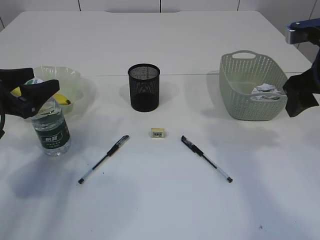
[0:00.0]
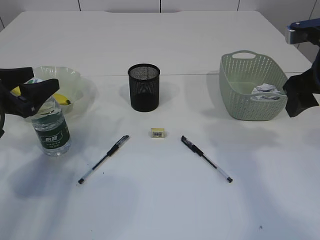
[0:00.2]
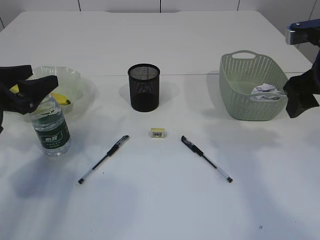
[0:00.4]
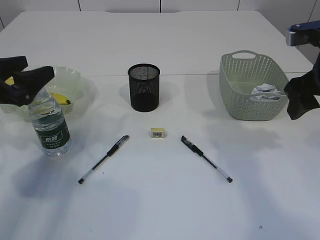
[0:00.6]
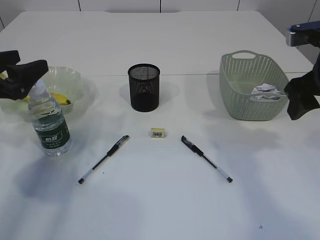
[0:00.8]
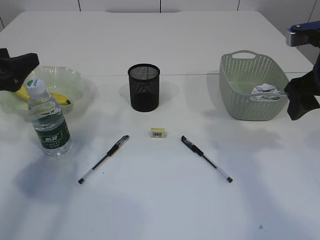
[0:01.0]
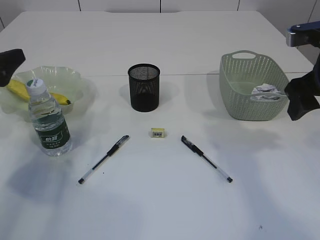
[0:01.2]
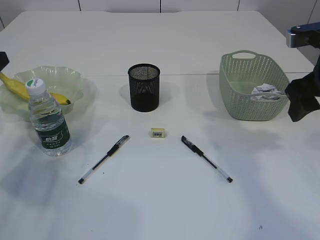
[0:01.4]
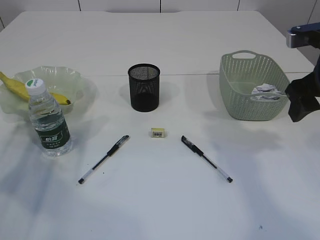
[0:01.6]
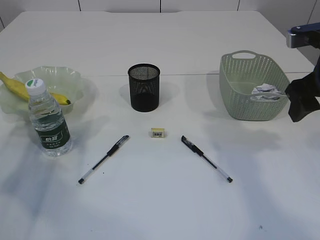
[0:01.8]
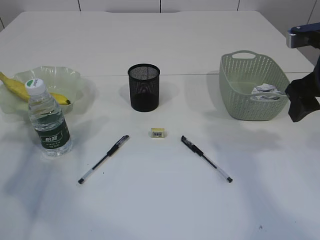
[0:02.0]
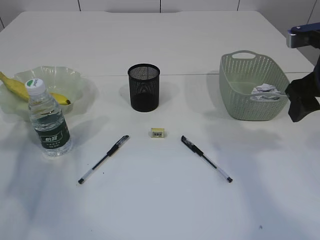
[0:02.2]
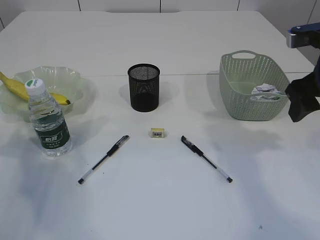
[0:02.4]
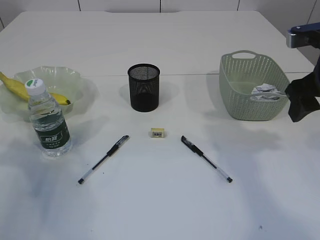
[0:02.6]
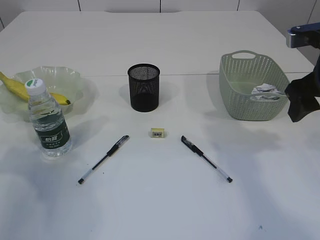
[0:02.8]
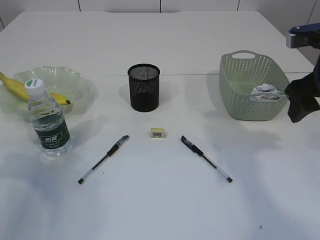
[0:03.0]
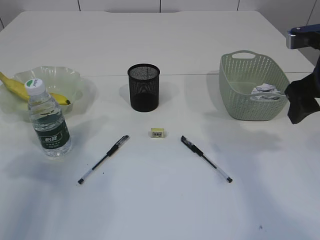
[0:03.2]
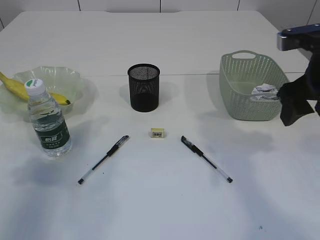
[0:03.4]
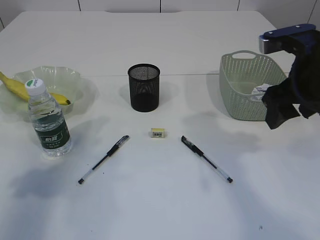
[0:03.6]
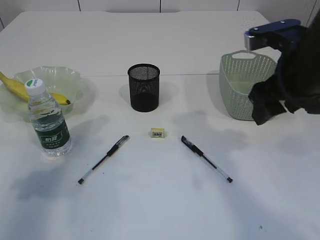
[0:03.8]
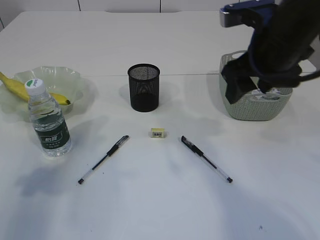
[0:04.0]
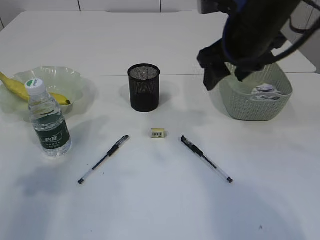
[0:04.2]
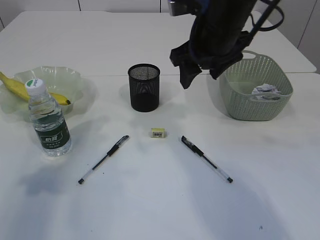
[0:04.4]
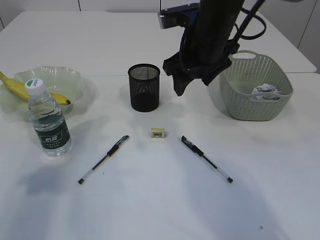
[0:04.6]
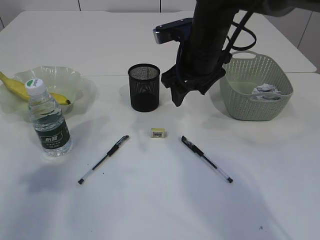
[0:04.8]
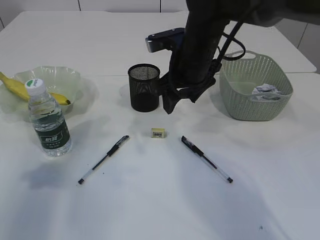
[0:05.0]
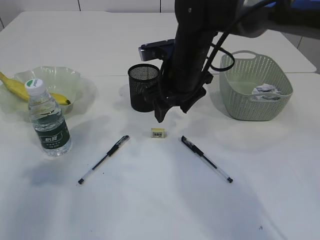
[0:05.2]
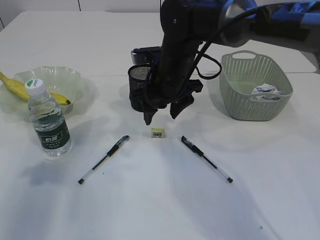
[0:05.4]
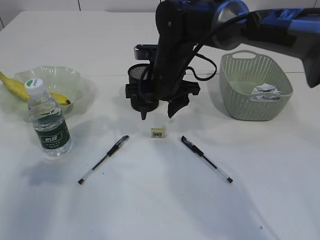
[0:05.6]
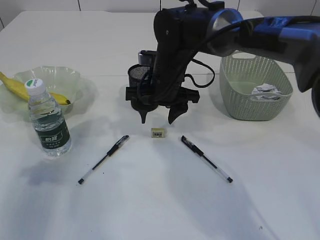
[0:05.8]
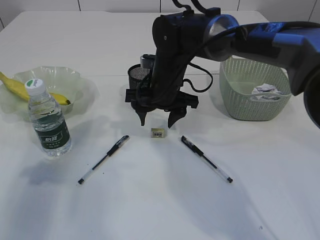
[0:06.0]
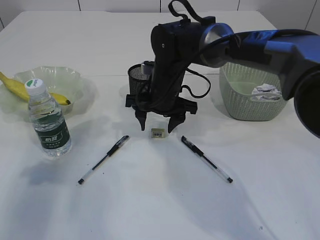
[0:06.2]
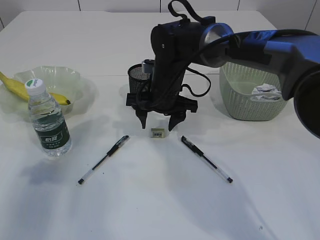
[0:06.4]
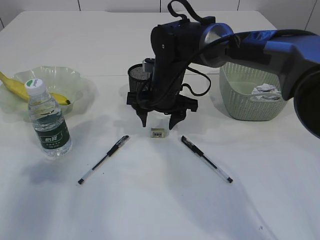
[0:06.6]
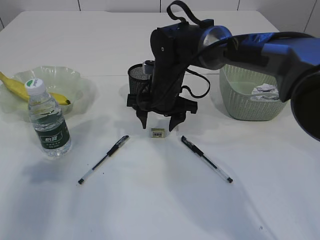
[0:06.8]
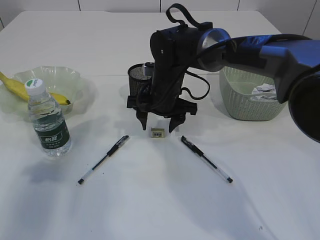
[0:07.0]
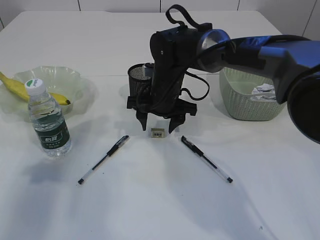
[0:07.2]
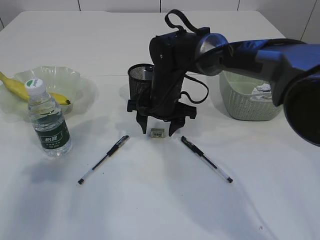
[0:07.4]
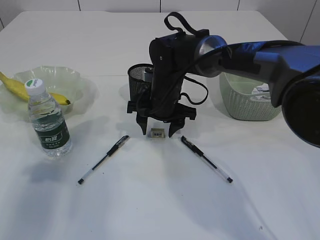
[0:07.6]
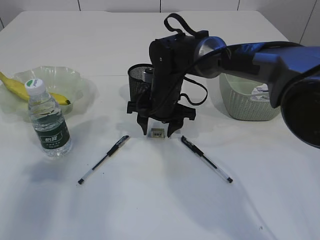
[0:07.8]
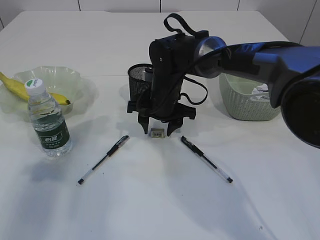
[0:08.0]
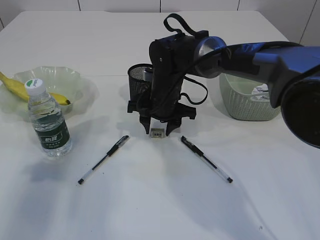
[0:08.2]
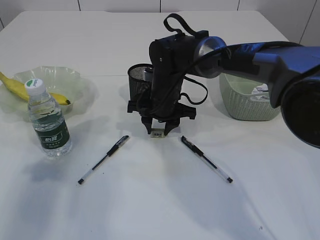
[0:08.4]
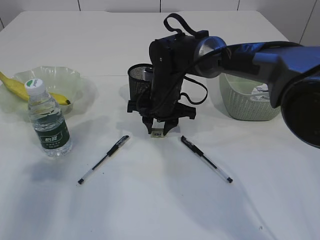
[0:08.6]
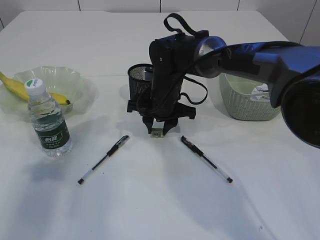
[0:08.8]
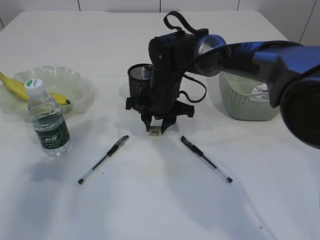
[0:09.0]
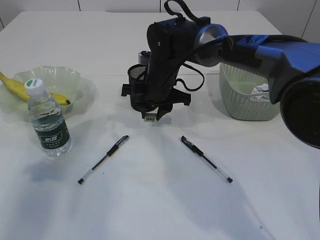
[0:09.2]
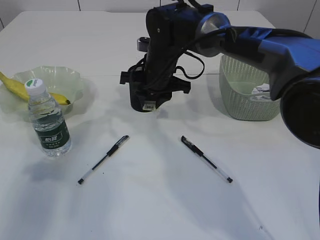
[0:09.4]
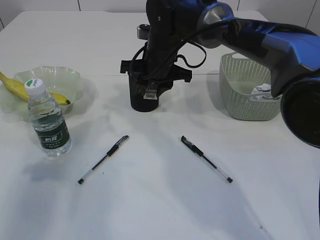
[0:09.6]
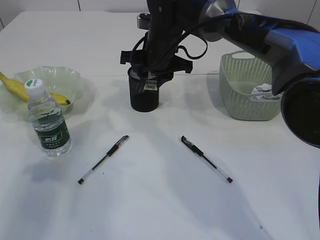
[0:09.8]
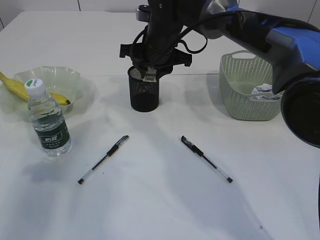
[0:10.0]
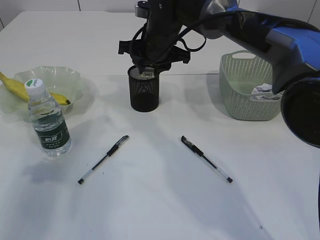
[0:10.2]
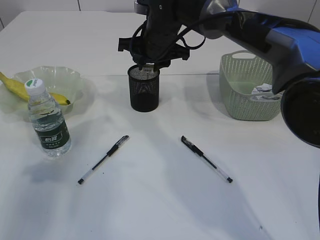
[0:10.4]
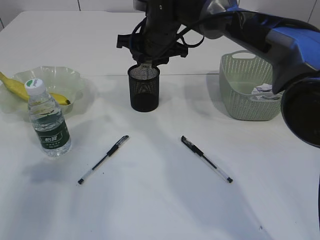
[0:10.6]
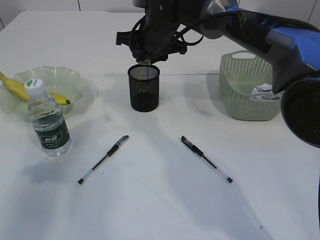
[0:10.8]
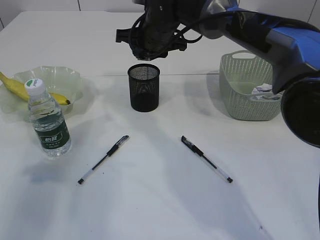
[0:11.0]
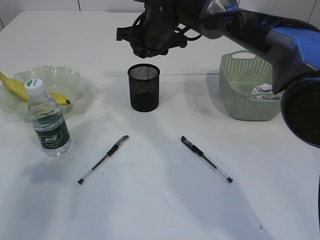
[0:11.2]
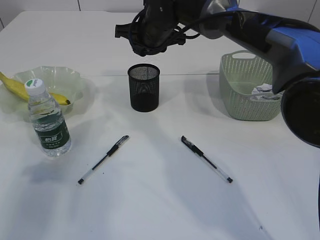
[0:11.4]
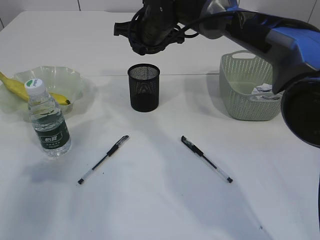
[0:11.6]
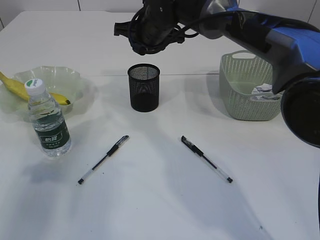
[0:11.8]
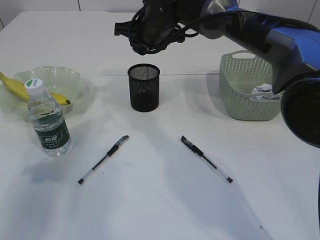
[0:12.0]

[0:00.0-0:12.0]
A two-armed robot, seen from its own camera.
Step, 0:00.8 to 0:09.2: Pick up the eraser.
Step, 0:09.4 to 0:11.4: Place the eraser into the pen holder.
0:00.0 to 0:01.6: The left gripper is displaced to the left by about 5 cm.
0:01.6 to 0:03.0: The left gripper travels backward by about 5 cm.
0:03.0 to 0:04.4: The right gripper is displaced to the left and forward by roughly 15 cm.
0:04.4 to 0:06.0: The right gripper travels downward and to the left by some 15 cm.
0:06.0 to 0:07.6: There are only small adjustments of the grippers.
0:07.6 to 0:09.0: The right gripper closes up.
0:09.0 to 0:10.4: The right gripper shifts about 10 cm upward.
0:10.4 to 0:12.0: There are only small adjustments of the grippers.

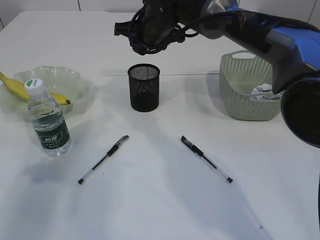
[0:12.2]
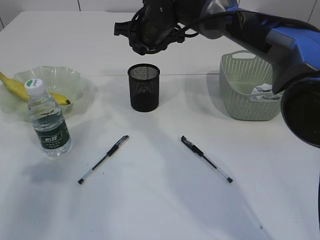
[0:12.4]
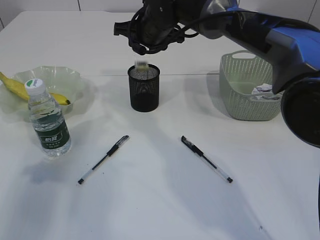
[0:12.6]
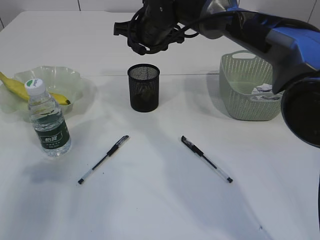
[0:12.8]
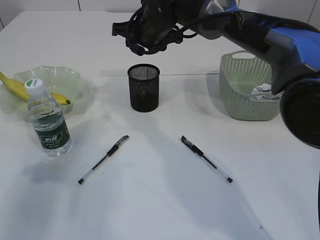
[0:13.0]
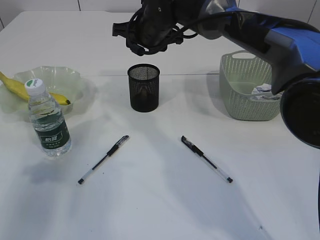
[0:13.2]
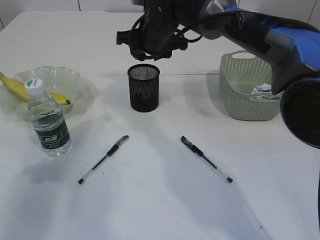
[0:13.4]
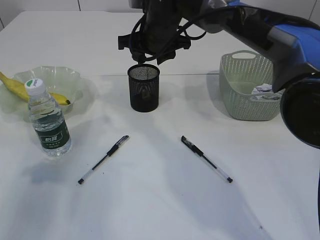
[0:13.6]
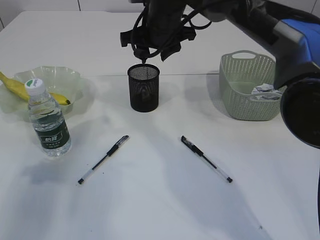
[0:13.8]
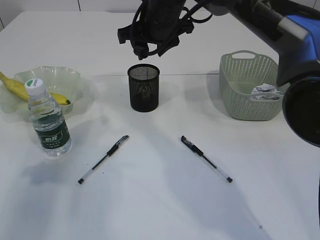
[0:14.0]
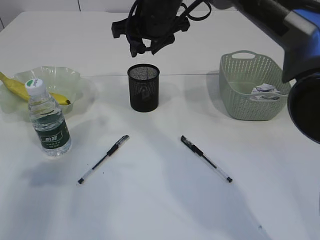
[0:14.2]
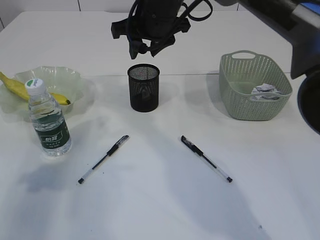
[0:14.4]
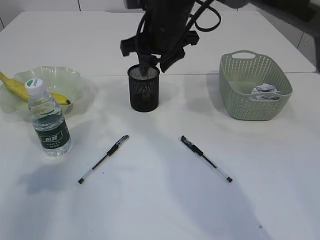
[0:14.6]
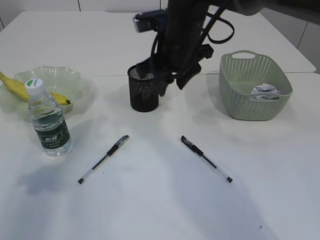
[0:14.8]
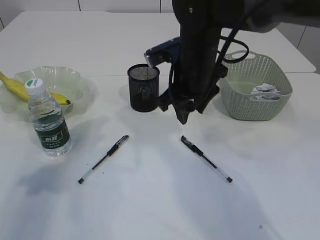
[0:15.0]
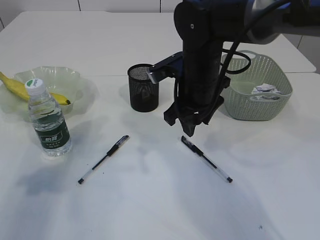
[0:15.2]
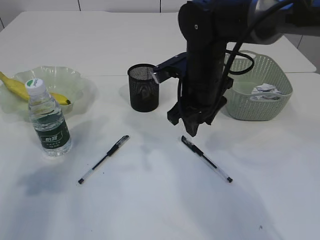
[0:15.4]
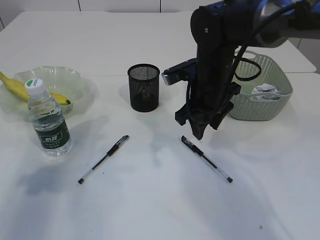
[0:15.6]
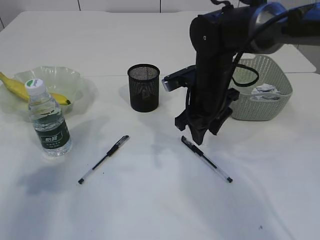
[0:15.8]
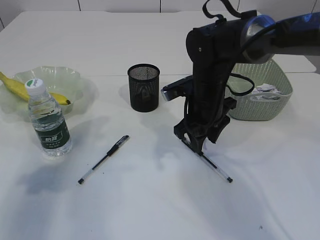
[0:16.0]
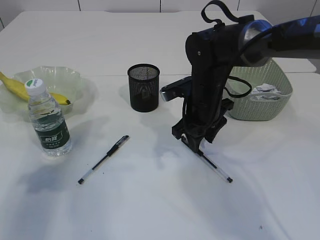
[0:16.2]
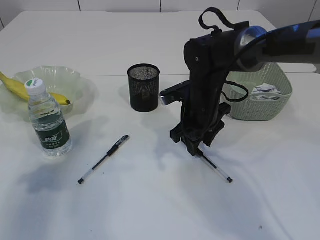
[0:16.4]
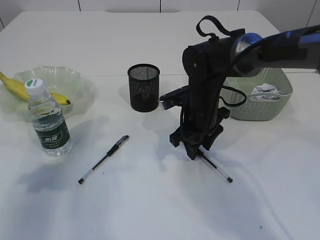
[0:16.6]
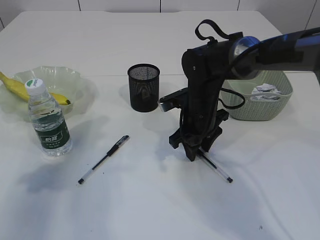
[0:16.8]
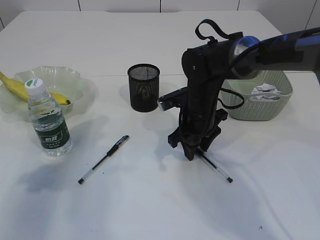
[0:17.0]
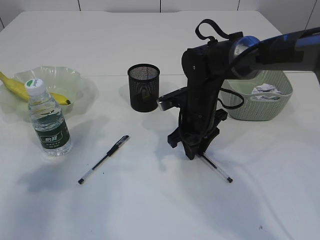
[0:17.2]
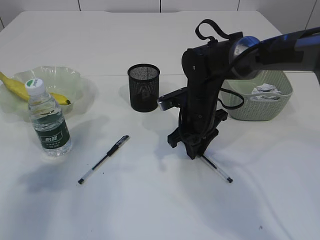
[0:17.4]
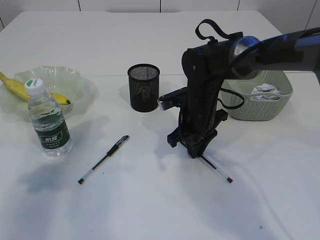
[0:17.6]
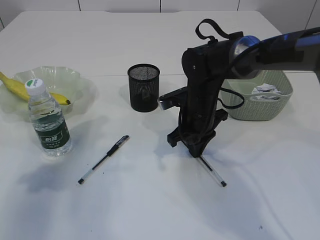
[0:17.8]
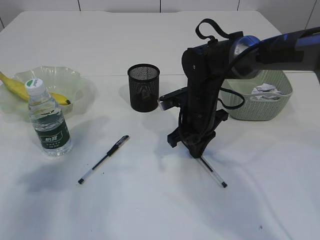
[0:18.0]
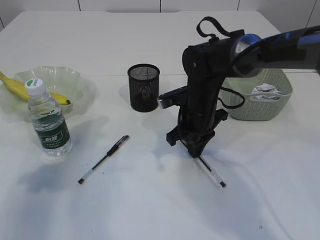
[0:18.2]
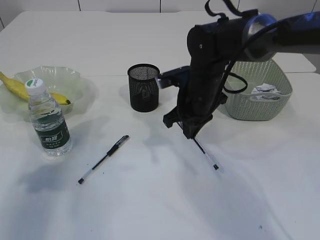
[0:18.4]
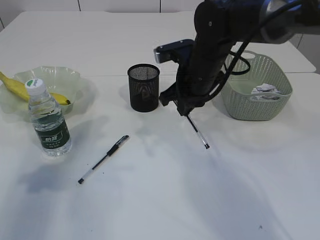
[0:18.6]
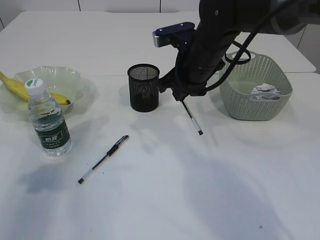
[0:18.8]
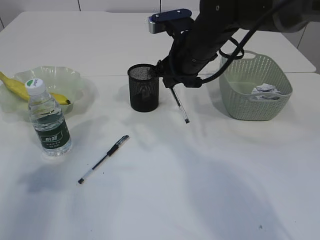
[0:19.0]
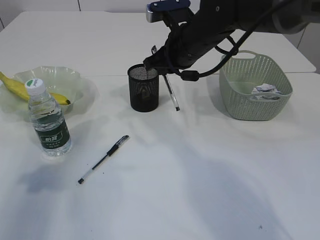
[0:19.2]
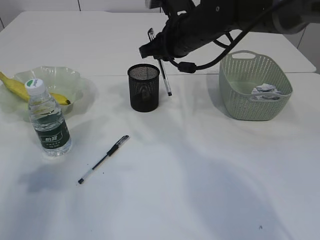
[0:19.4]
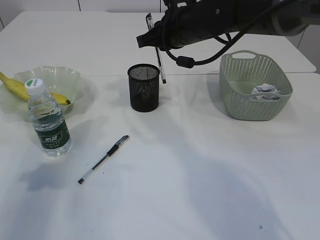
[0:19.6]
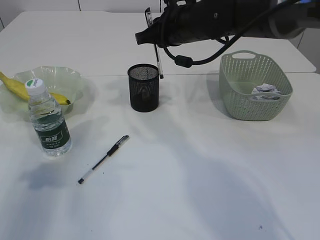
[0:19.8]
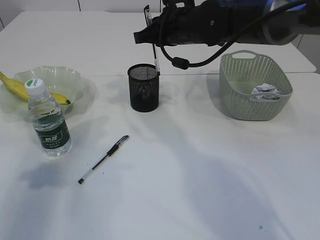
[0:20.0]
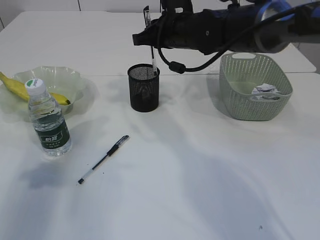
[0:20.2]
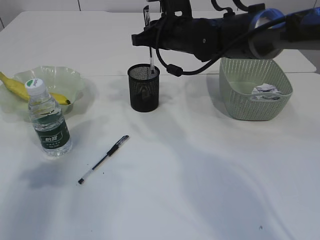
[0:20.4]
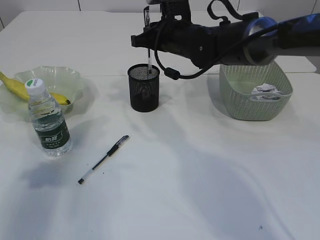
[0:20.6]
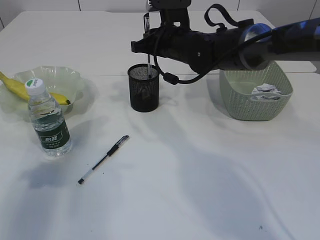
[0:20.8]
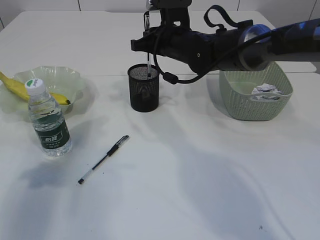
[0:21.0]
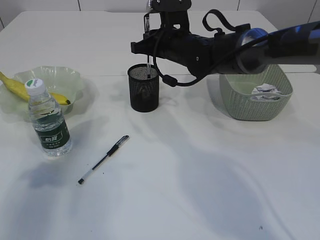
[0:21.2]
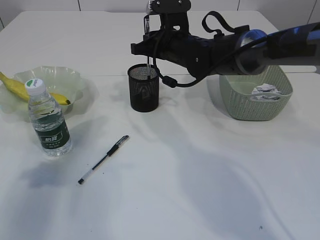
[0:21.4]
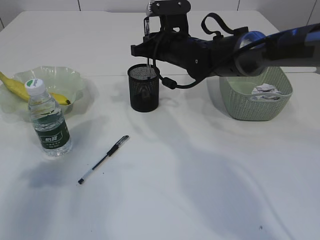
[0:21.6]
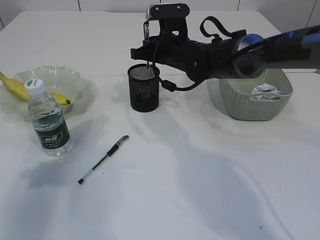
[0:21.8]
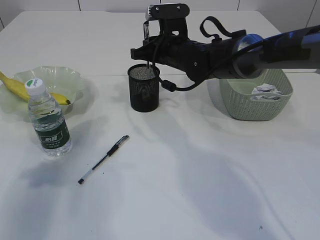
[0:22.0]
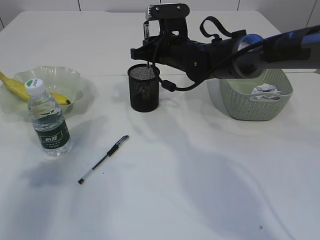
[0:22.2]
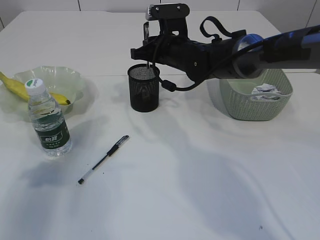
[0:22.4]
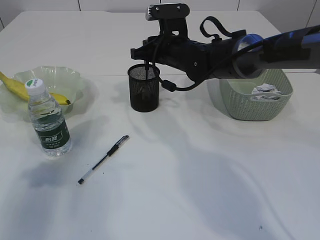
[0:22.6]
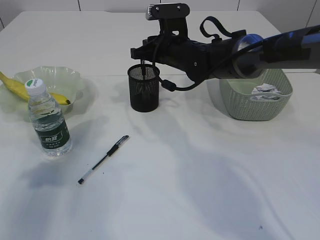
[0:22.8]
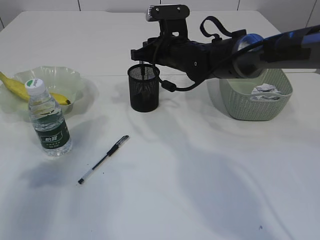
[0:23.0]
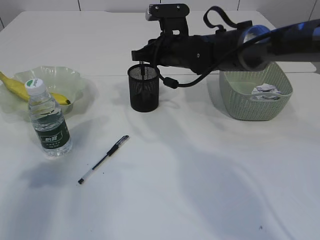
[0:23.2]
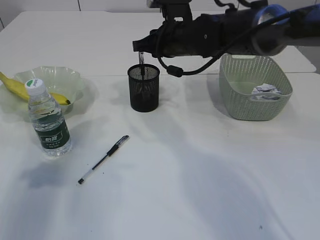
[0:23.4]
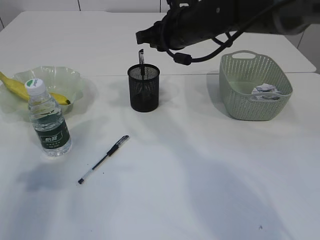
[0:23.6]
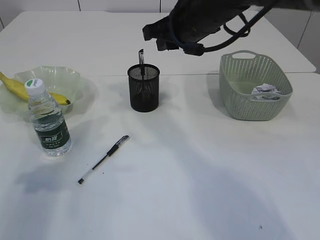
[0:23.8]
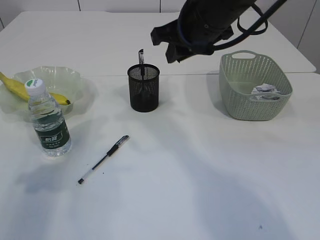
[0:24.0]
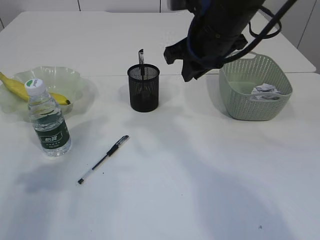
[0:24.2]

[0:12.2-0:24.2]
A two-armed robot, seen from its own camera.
Step, 0:12.2 to 0:18.4: Pick up the pen with right arm.
Step, 0:18.6 to 0:23.4: Place the pen into the pen holder.
0:12.2 to 0:13.8: There are only small adjustments of the grippers.
0:13.8 to 0:15.2: The right gripper heads backward and downward, covering some 10 cm.
0:15.2 to 0:16.6: The right gripper goes approximately 10 cm downward.
0:16.6 to 0:18.2: The right gripper closes.
0:18.2 to 0:19.8: The right gripper heads upward, covering approximately 15 cm.
0:19.8 to 0:21.2: The right gripper shifts approximately 5 cm downward.
0:21.2 to 0:22.6: The two grippers keep their place.
0:22.6 to 0:24.2: The right gripper heads backward and upward, covering about 15 cm.
